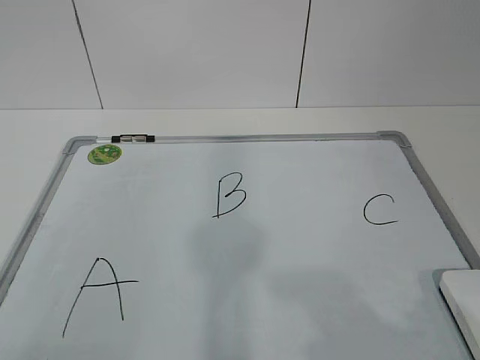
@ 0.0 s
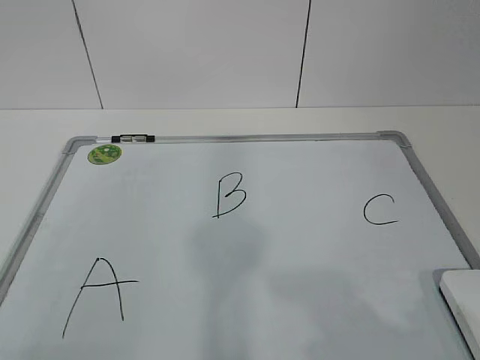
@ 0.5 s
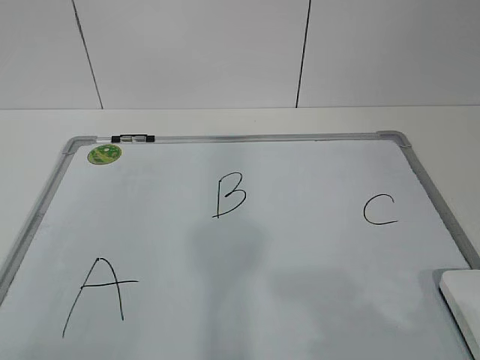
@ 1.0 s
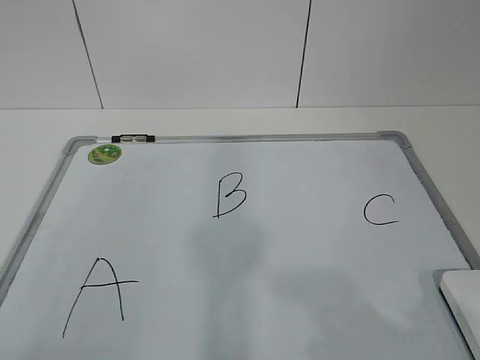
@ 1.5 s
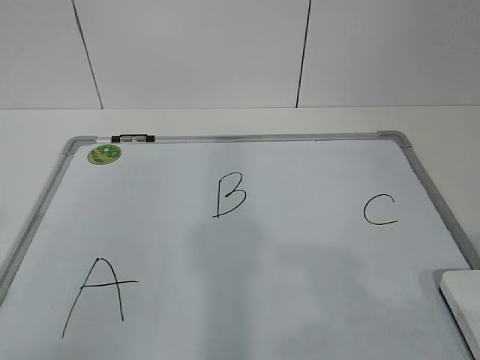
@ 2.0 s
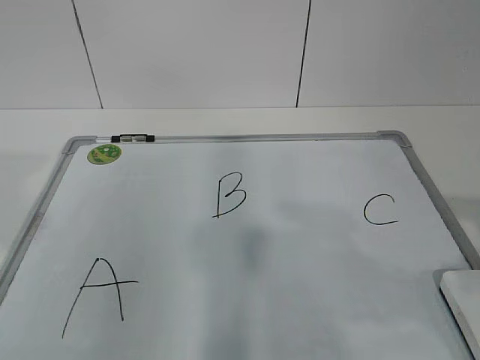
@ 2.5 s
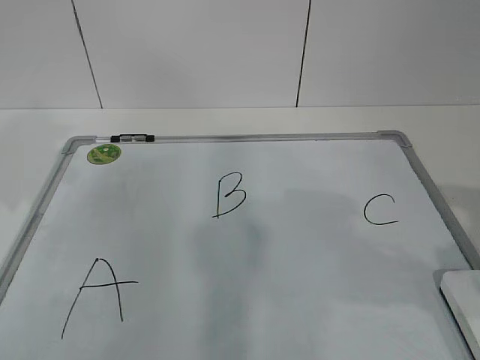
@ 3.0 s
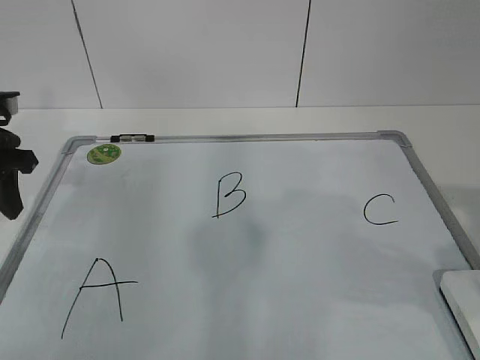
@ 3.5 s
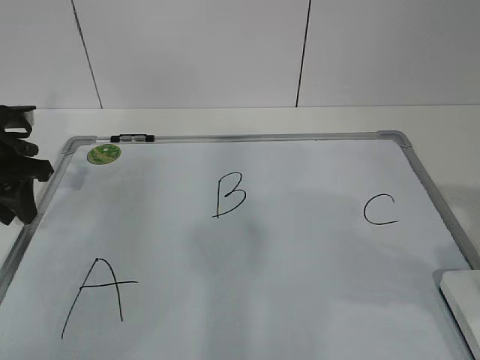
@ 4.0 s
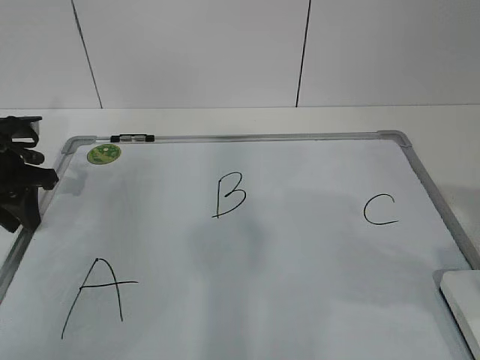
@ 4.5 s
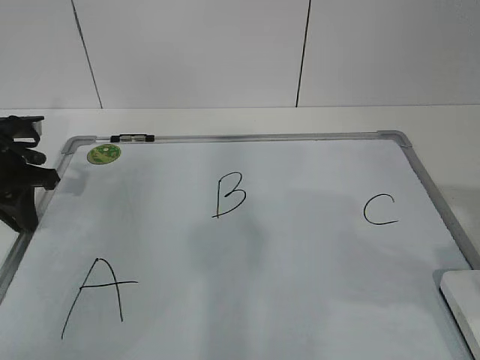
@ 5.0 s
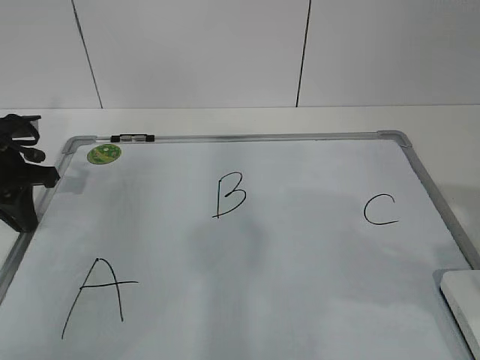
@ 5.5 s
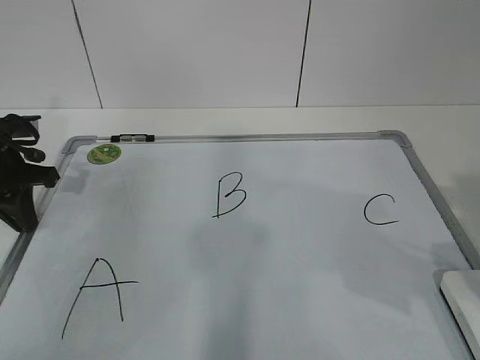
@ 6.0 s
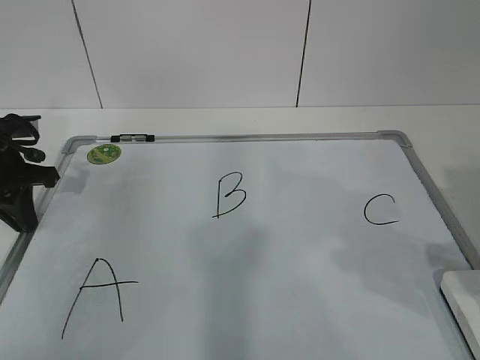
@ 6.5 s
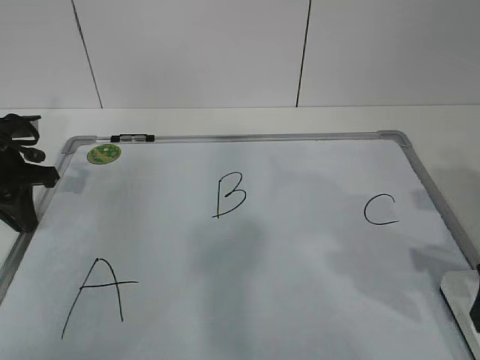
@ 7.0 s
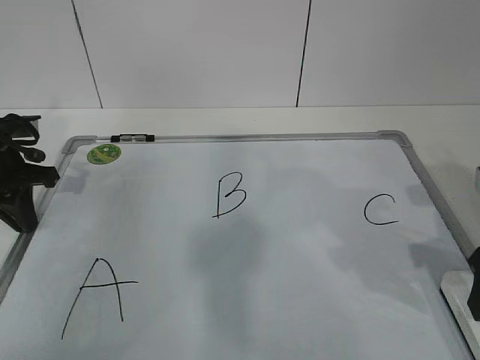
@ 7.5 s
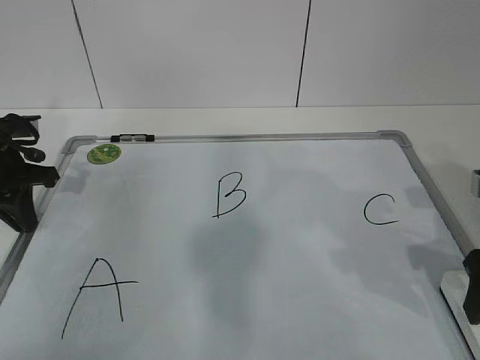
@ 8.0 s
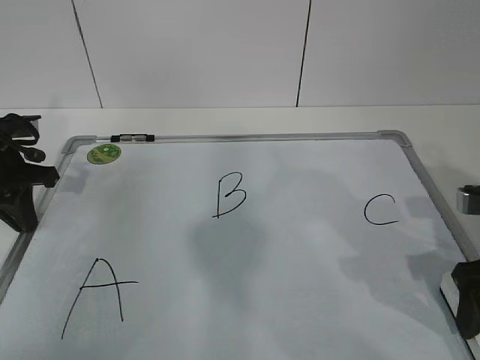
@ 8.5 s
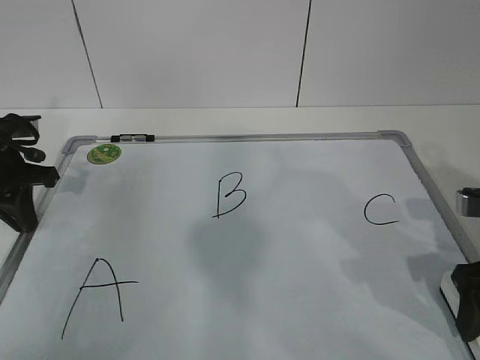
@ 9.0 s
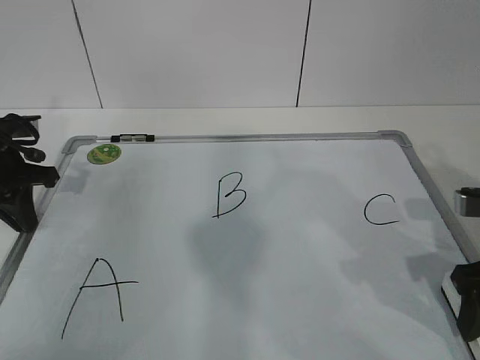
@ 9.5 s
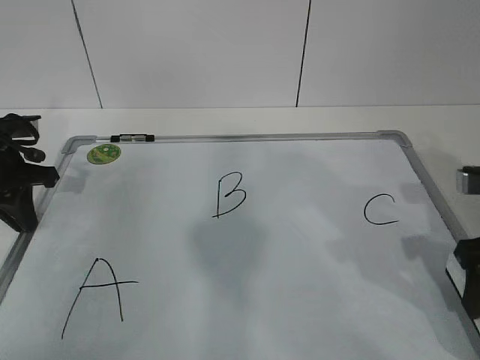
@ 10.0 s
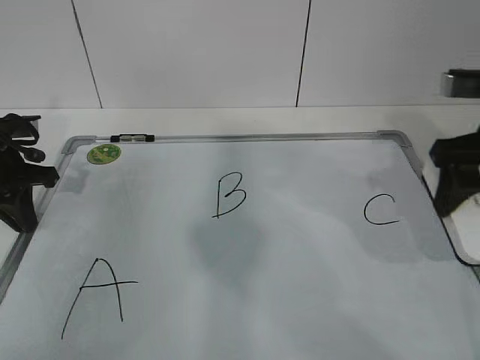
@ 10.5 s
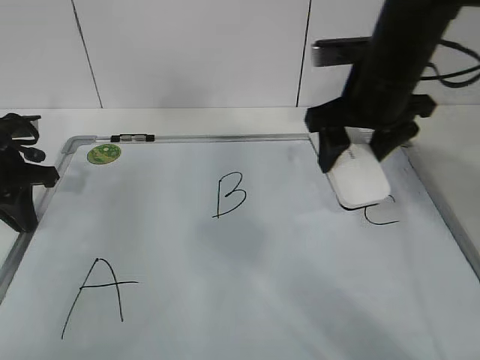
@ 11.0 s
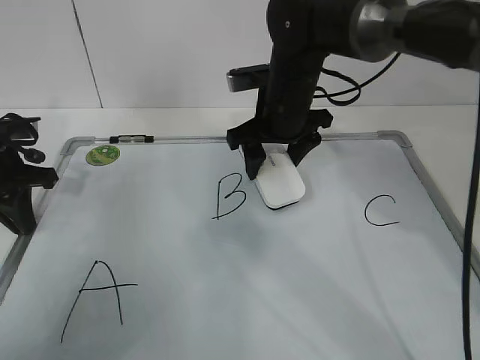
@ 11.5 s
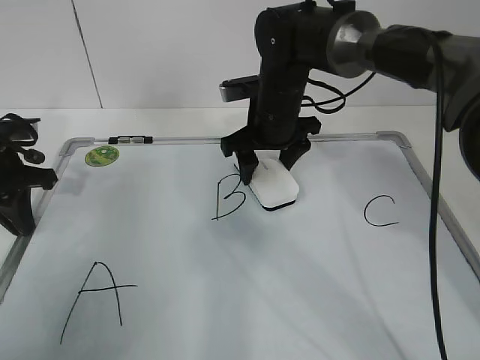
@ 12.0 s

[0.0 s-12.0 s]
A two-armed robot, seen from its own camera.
Task of the whole recording: pick up the eraser on the blackboard and erase the letter "B".
Step, 0.0 to 4.0 s: Hold the drawing board steady with your left hand.
2.0 to 4.0 s: The left gripper heads forward, covering about 35 cm.
4.0 to 6.0 s: The left gripper closes up.
6.0 to 8.0 s: The right gripper shifts about 10 cm forward and downward.
8.0 to 10.0 s: There are only small adjustments of the grippers.
10.0 to 12.0 s: The right gripper is displaced to the left and forward by roughly 30 cm.

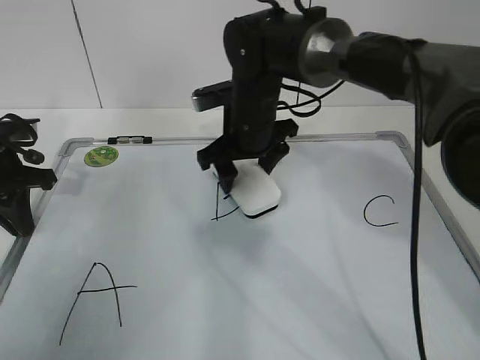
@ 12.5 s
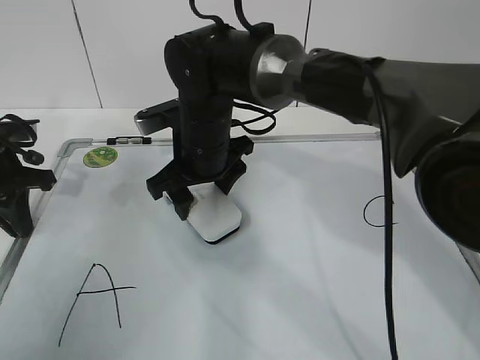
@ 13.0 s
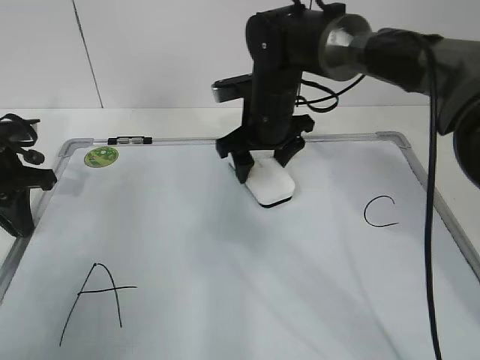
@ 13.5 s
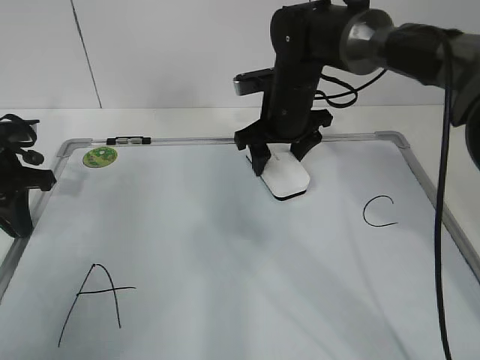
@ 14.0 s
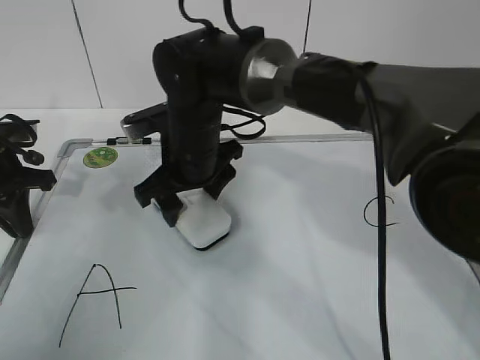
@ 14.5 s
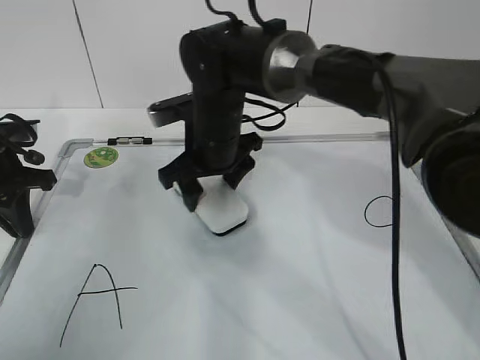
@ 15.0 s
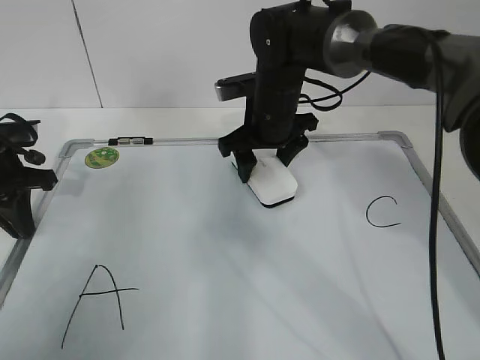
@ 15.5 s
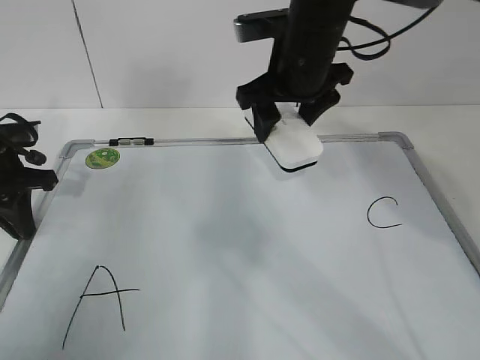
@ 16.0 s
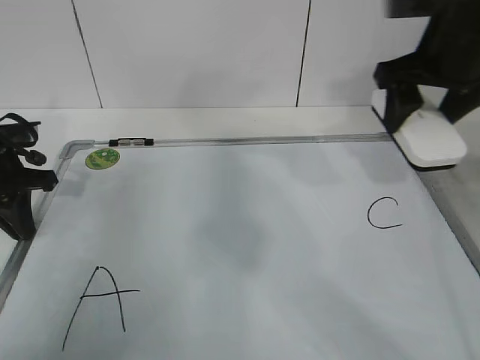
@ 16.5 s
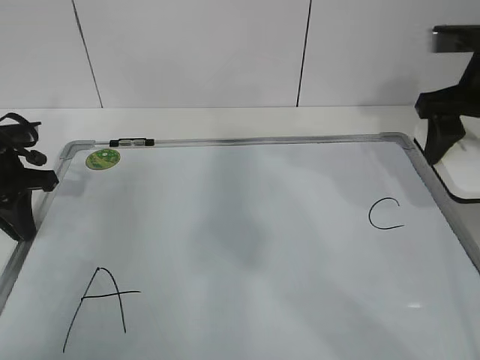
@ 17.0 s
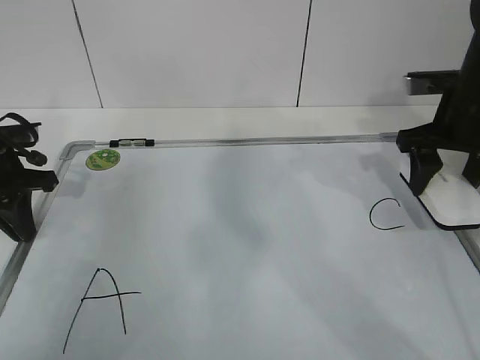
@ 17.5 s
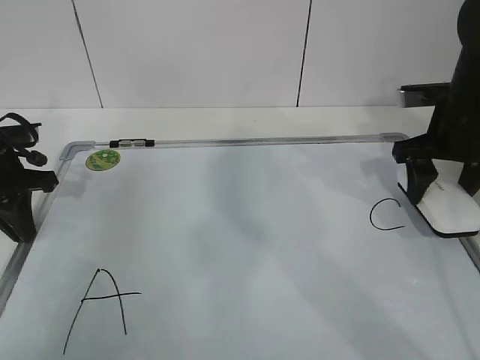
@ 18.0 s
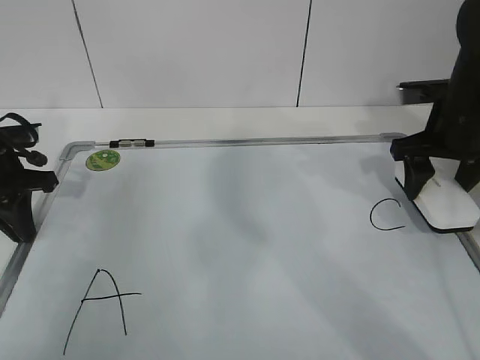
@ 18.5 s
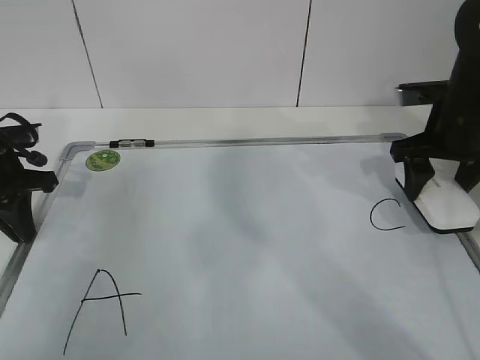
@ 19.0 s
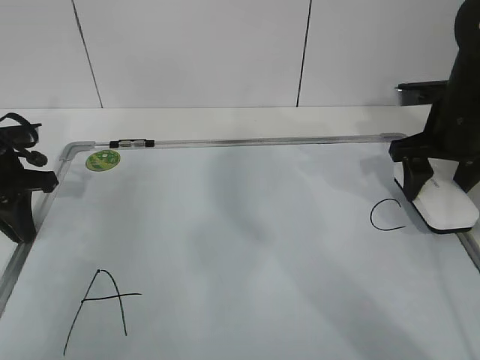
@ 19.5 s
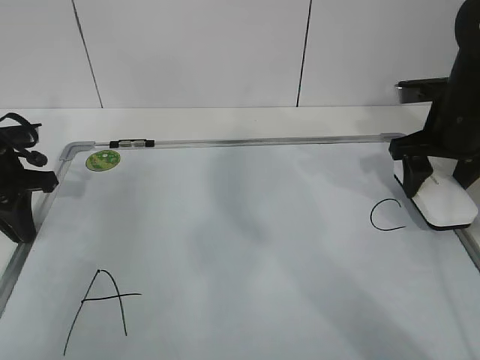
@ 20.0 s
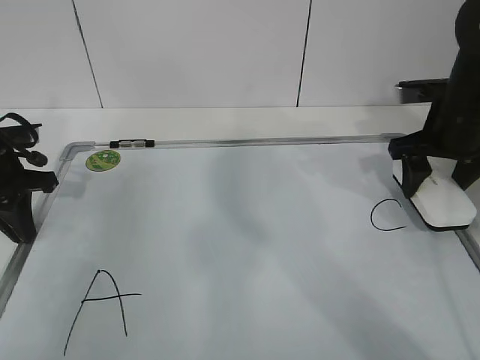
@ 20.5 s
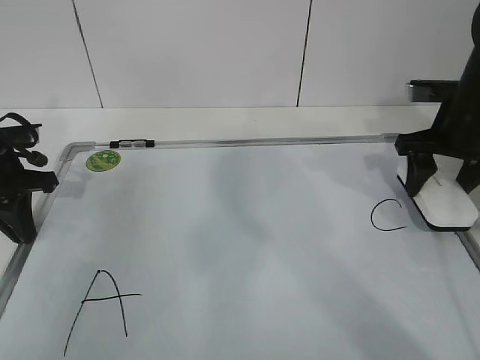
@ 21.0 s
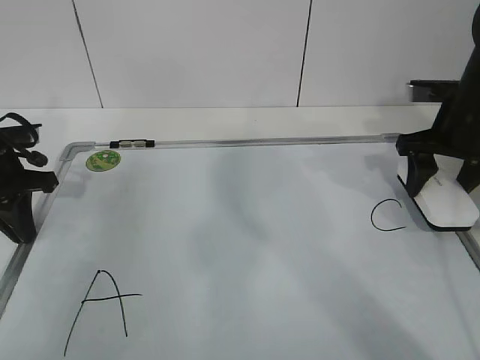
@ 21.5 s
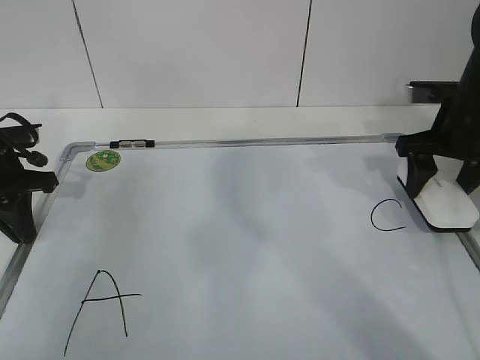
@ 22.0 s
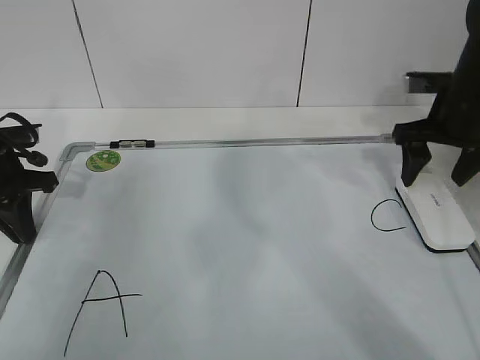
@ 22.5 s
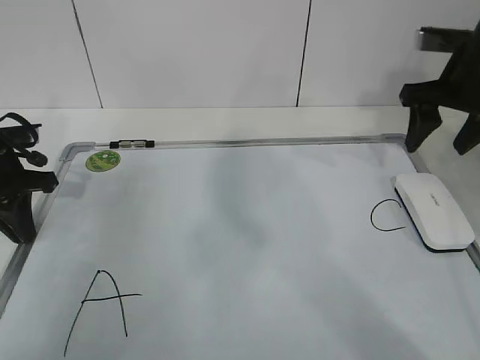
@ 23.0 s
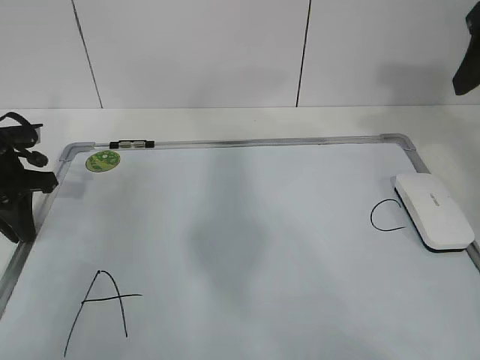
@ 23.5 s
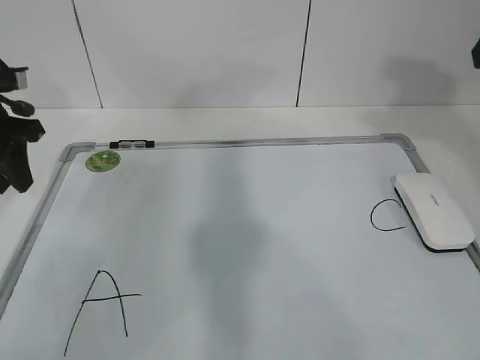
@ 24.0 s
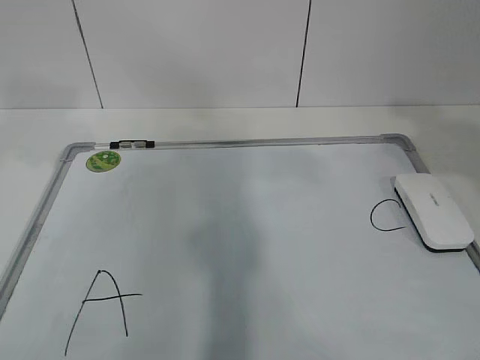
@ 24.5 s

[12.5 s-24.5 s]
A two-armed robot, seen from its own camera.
Task of the whole recording: pick up the eraser on the blackboard and erase the letter "B".
Step, 13.0 to 18.0 s: Put down the eraser with your right hand.
12.5 to 14.5 s: The right gripper moves left and right over approximately 10 cm, changing direction 2 times.
14.5 to 16.5 s: The right gripper is displaced to the right and upward by some 30 cm.
16.5 to 18.5 s: The right gripper heads downward, covering about 10 cm.
18.5 to 20.5 s: Neither gripper changes place.
20.5 to 22.5 s: There are only small adjustments of the grippers.
22.5 to 24.5 s: The left gripper is displaced upward by about 20 cm, and opens. Meanwhile the right gripper goes about 30 cm backward and upward.

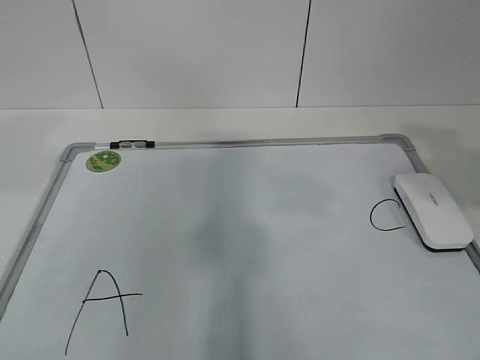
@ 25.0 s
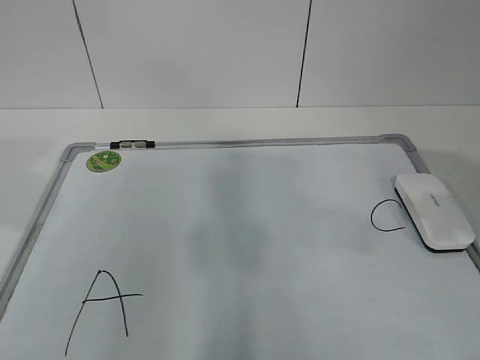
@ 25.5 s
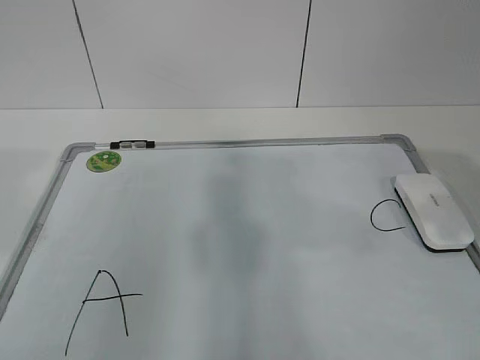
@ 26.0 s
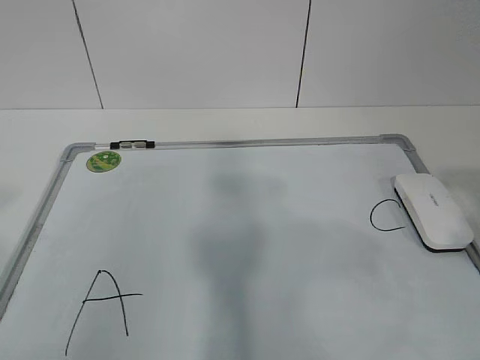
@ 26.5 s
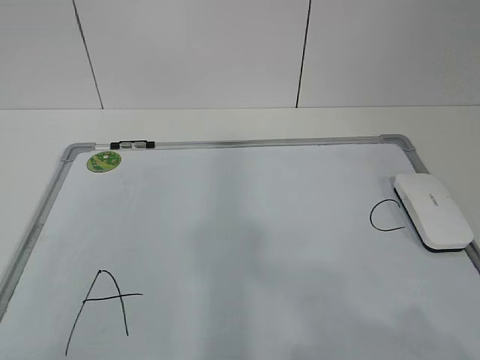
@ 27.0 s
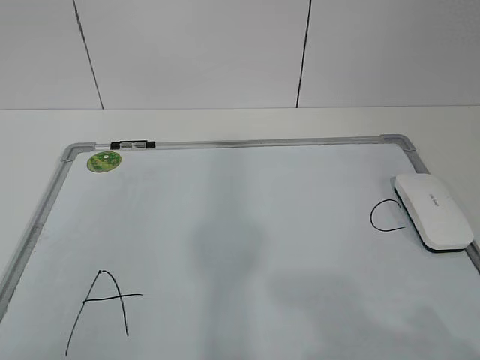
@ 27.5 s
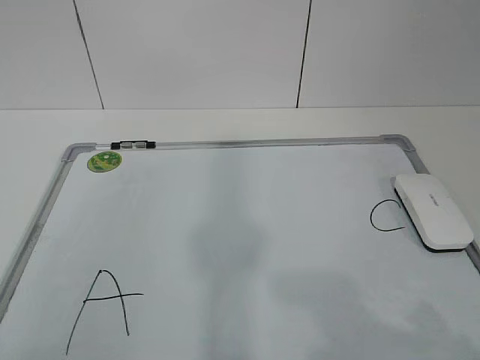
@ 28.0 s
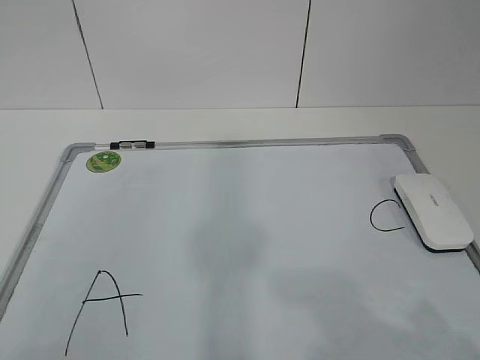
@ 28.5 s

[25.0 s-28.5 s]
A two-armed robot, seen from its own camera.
Task of the whole recording: pick up the eraser on the blackboard and erase the letter "B".
25.0 to 27.0 s: The left gripper moves backward, some 25 cm. The right gripper travels backward and downward by approximately 20 cm.
